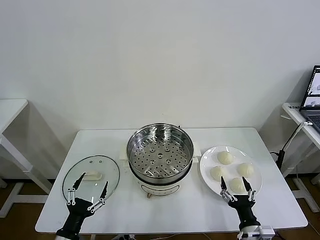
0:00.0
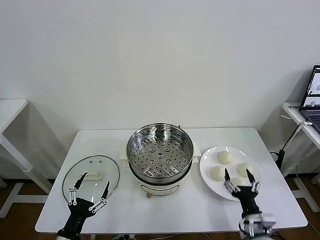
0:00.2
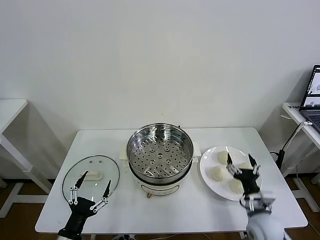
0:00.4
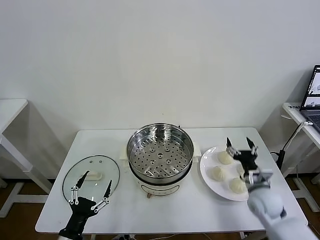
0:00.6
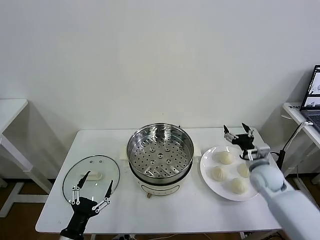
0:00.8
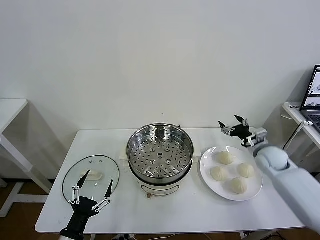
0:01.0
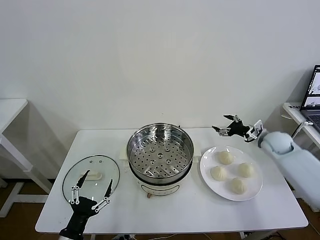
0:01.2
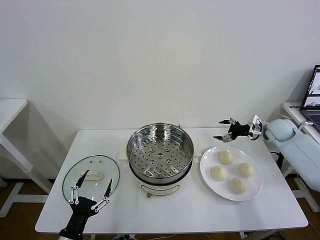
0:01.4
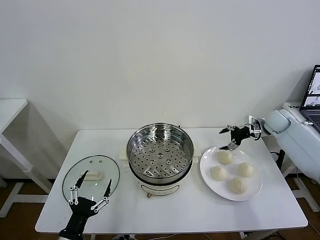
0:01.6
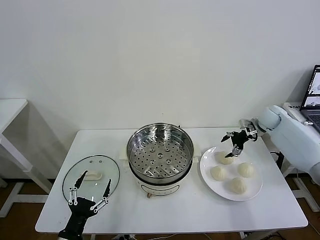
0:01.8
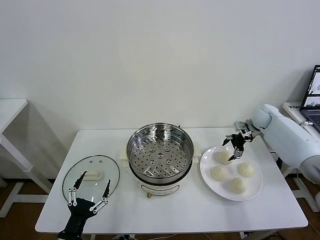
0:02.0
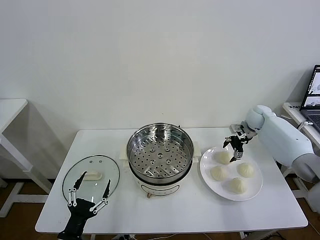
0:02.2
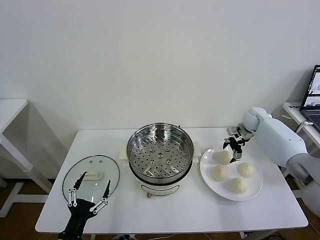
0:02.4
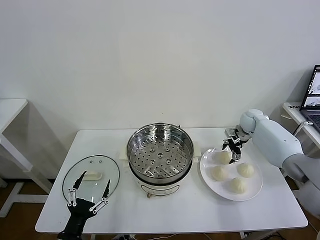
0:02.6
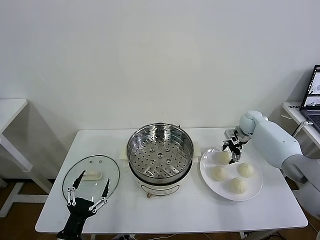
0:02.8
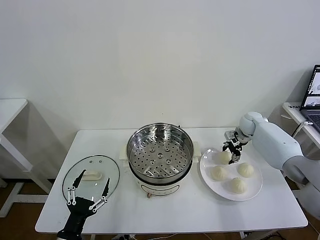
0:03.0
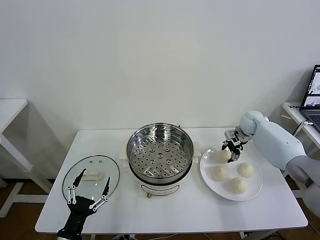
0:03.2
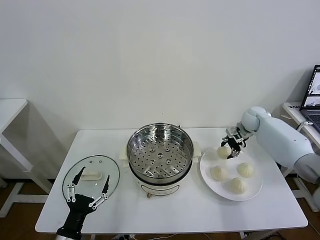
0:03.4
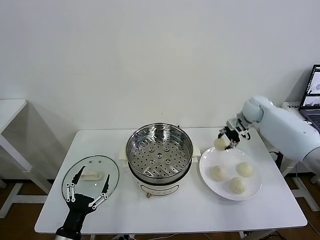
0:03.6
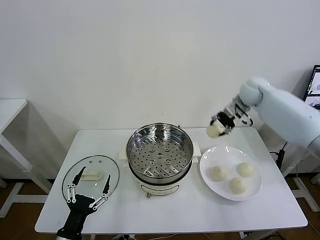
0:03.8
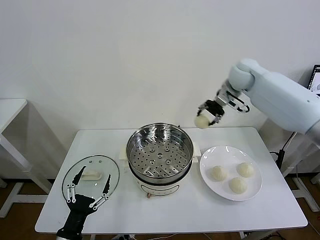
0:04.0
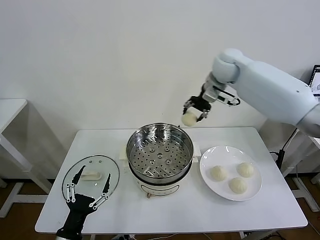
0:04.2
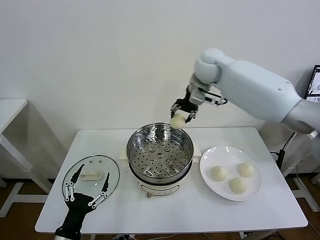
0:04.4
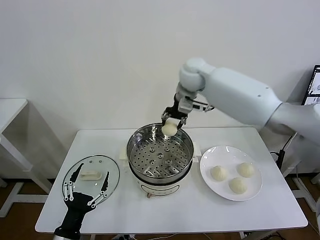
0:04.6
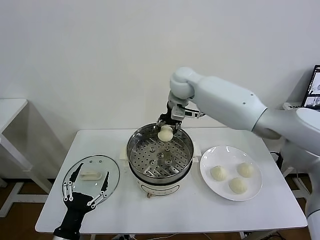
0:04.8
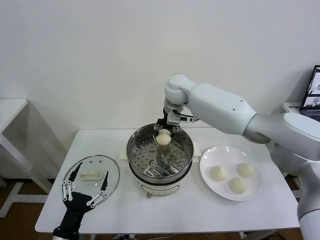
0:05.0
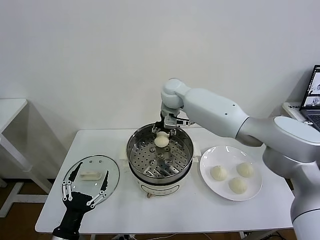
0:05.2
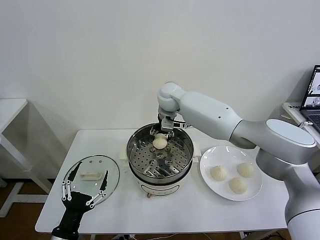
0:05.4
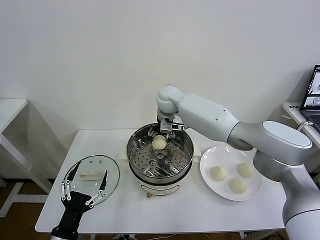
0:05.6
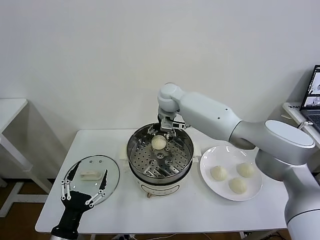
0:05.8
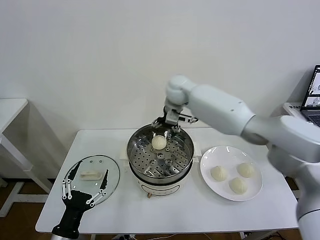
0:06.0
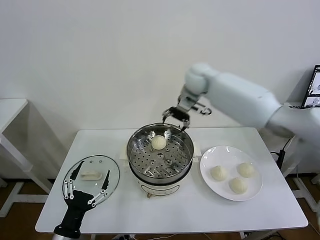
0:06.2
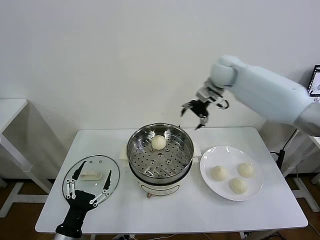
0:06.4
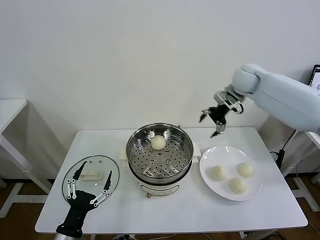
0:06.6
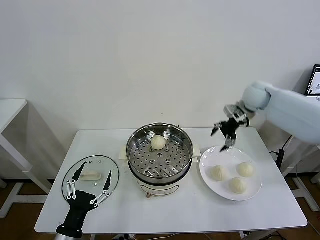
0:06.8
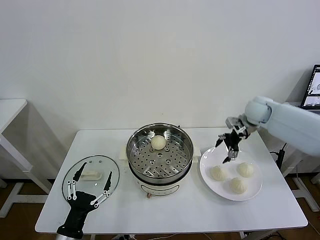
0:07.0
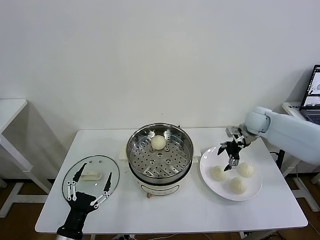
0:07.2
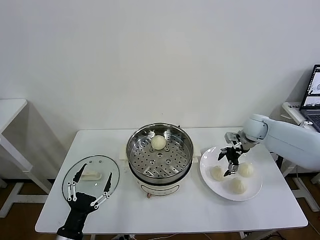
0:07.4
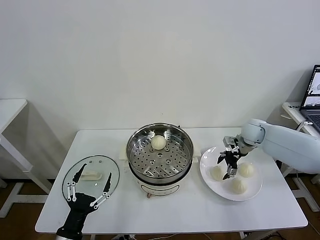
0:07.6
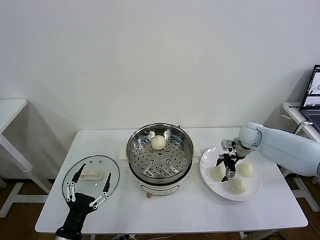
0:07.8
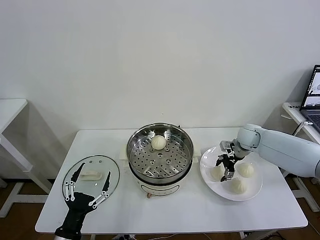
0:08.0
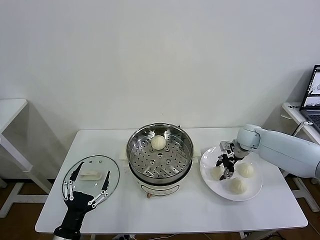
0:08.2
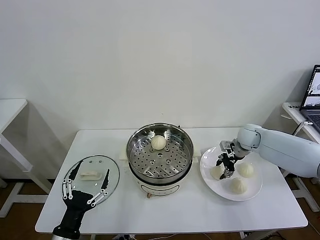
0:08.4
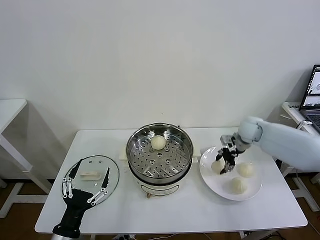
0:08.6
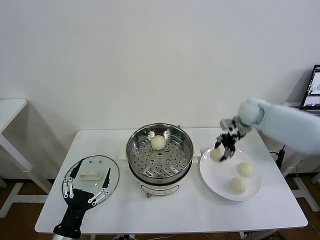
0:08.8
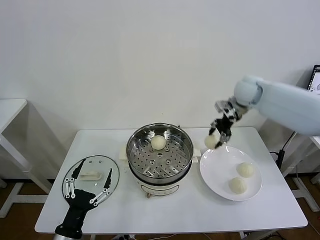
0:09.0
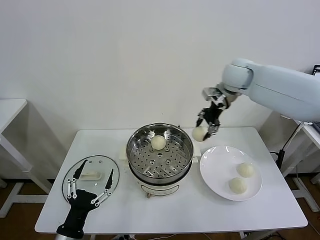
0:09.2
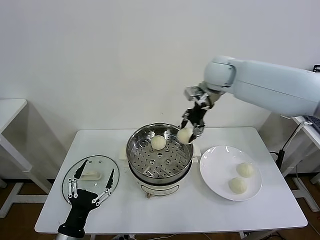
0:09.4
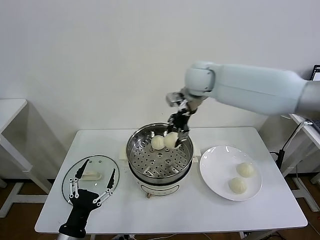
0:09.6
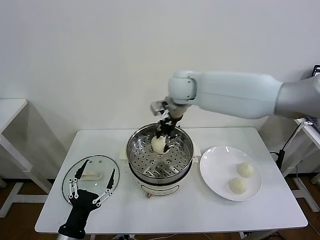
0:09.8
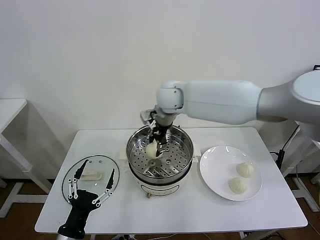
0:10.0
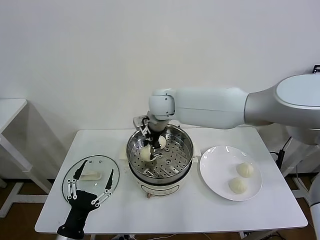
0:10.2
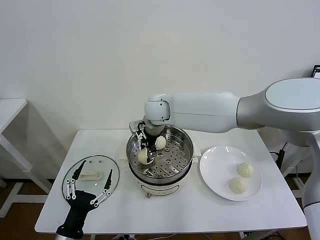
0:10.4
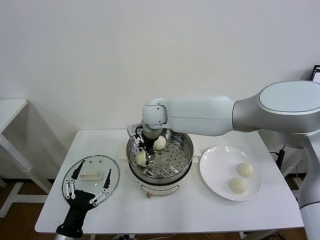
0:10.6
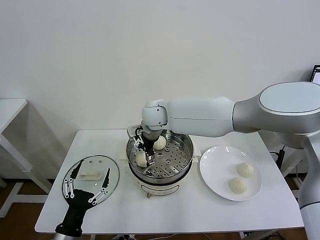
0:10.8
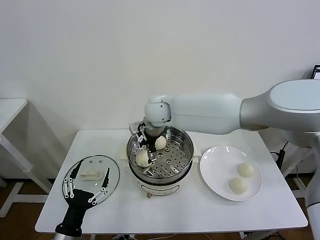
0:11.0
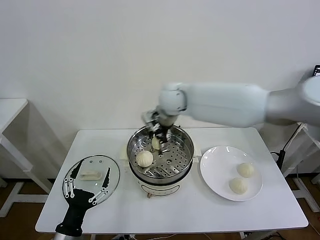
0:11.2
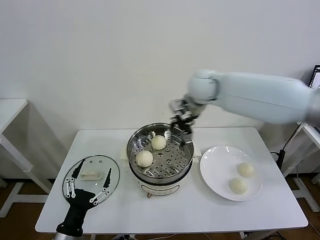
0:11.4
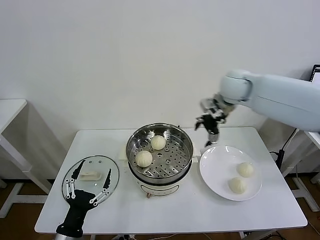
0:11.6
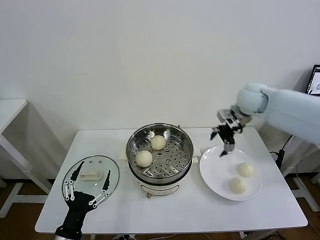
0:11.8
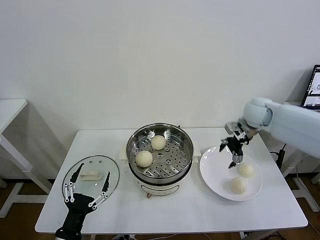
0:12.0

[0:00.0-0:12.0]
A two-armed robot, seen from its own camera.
Task of the whole recording: take steamed baozi put them in steamer then cover it.
Step, 0:00.0 to 0:03.0: Grasp the baozi in the plate with right gripper.
Step, 0:03.2 to 0:05.6: Place the baozi on the steamer with right gripper.
Step, 0:05.8 to 0:08.2: Grasp the baozi in the plate with right gripper.
Step, 0:08.4 to 0:10.8: Place the baozi on the steamer with right gripper.
0:01.6 to 0:03.0: The right gripper is displaced to the left and downward by about 10 cm, and closes up.
0:03.0 to 0:04.4: The right gripper travels to the left and upward by about 35 cm, and closes its fingers.
0:04.4 to 0:06.0: The right gripper travels downward by some 5 cm, and opens its fingers.
0:06.0 to 0:07.6: The right gripper goes some 30 cm to the right and downward.
0:07.6 to 0:09.0: The right gripper travels upward and to the left by approximately 20 cm, and closes its fingers.
0:09.0 to 0:10.4: The right gripper moves to the left, about 30 cm.
0:10.4 to 0:12.0: The right gripper is displaced to the right by about 35 cm, and opens its fingers.

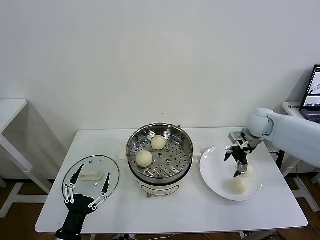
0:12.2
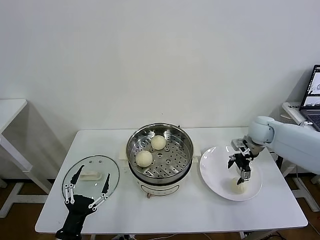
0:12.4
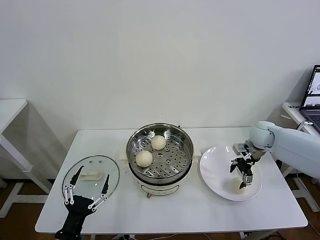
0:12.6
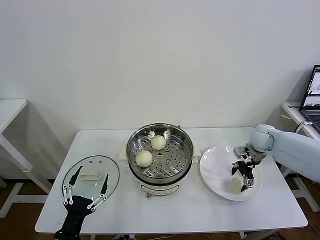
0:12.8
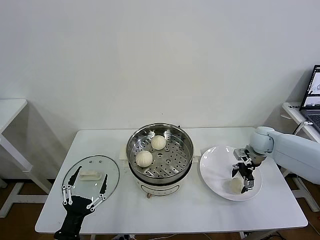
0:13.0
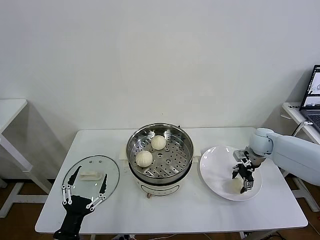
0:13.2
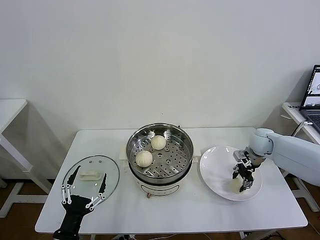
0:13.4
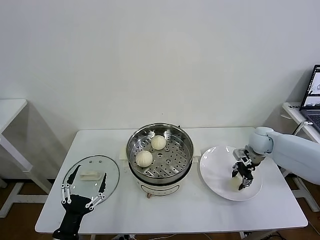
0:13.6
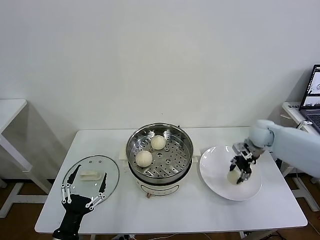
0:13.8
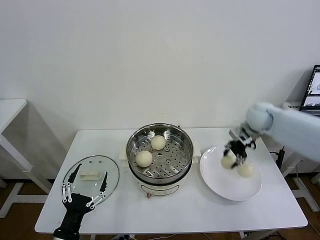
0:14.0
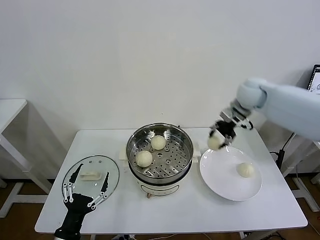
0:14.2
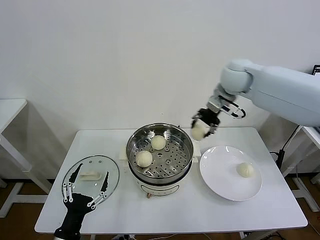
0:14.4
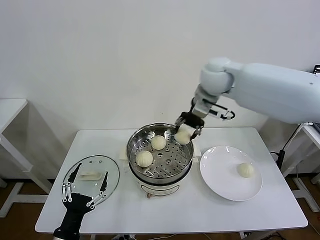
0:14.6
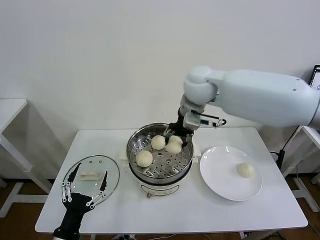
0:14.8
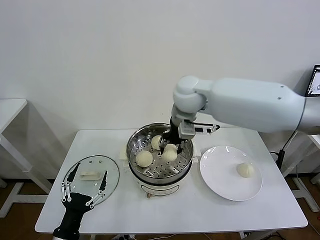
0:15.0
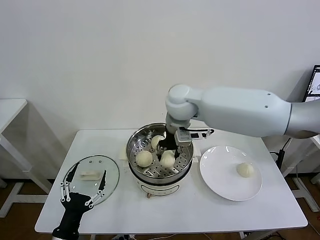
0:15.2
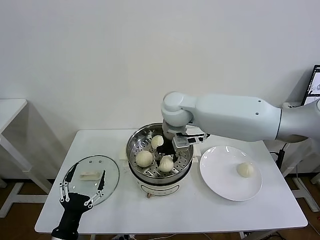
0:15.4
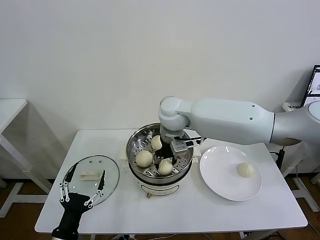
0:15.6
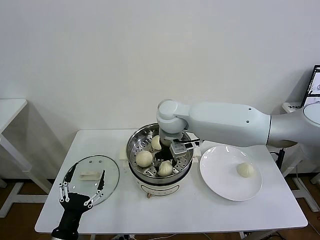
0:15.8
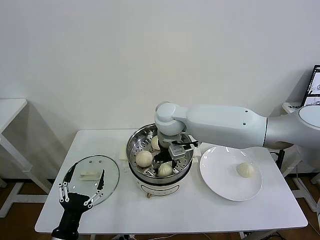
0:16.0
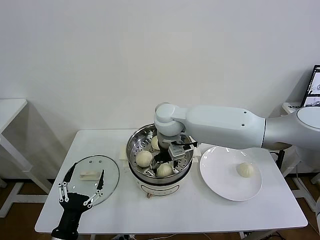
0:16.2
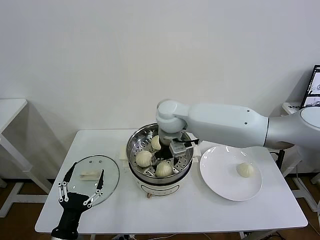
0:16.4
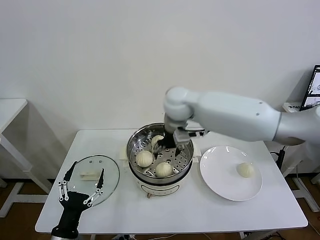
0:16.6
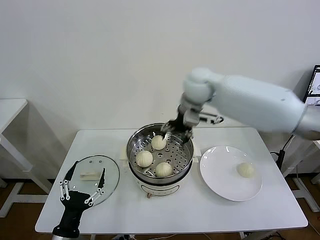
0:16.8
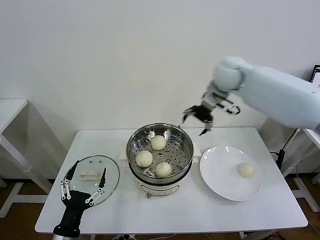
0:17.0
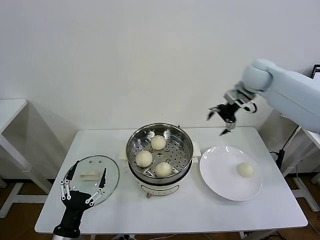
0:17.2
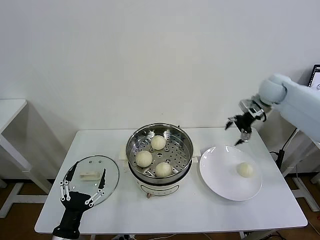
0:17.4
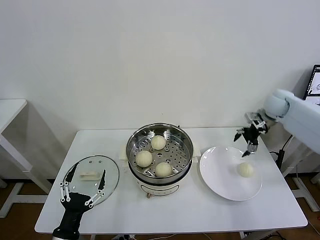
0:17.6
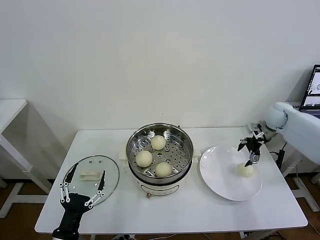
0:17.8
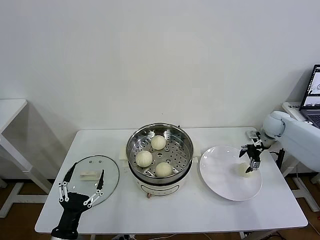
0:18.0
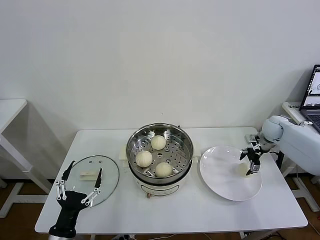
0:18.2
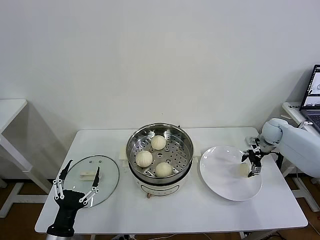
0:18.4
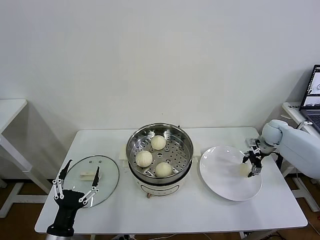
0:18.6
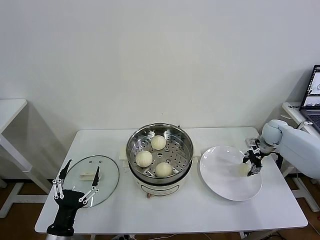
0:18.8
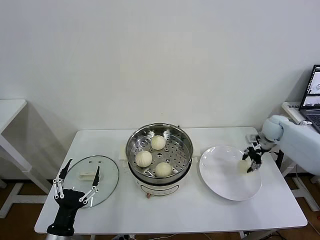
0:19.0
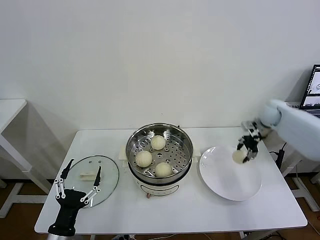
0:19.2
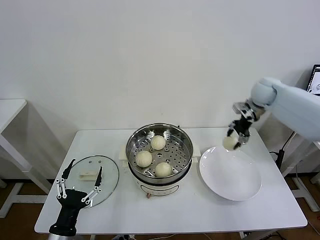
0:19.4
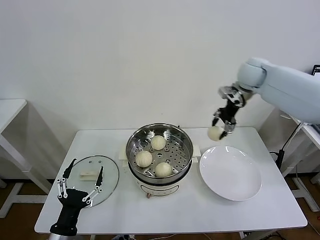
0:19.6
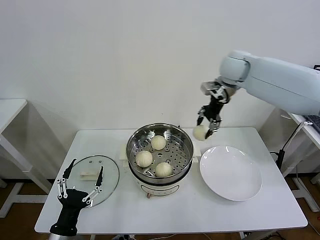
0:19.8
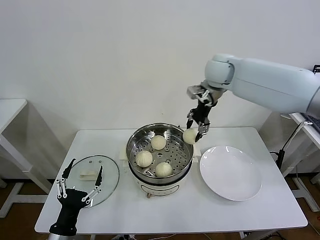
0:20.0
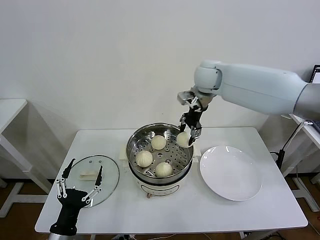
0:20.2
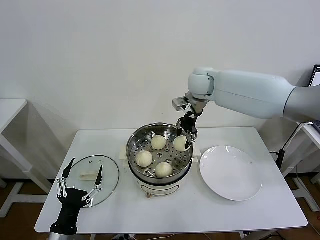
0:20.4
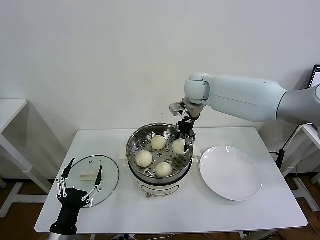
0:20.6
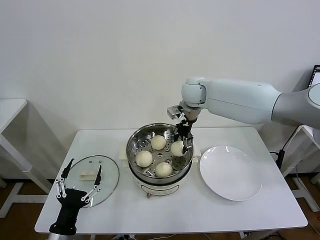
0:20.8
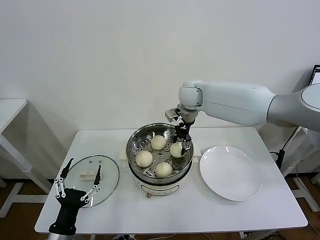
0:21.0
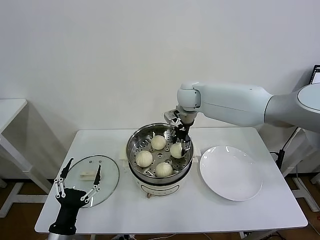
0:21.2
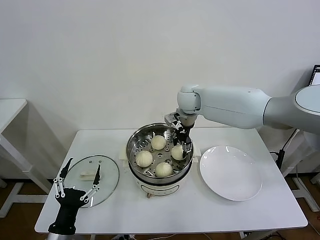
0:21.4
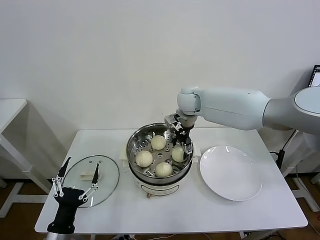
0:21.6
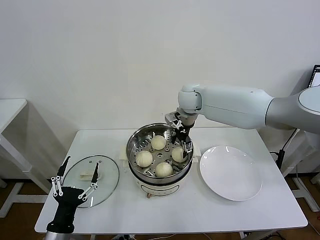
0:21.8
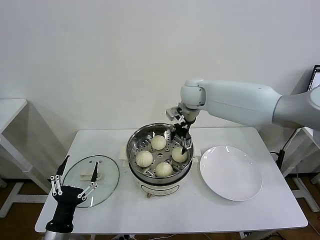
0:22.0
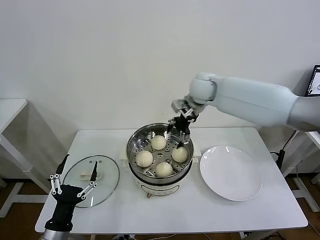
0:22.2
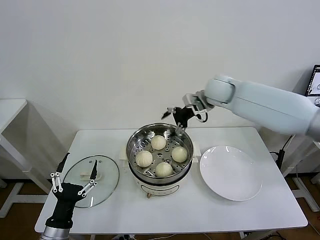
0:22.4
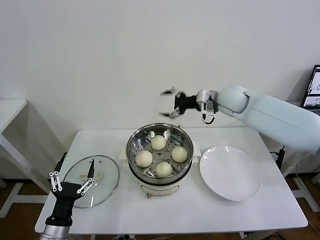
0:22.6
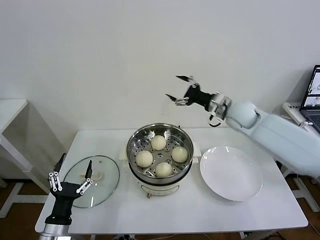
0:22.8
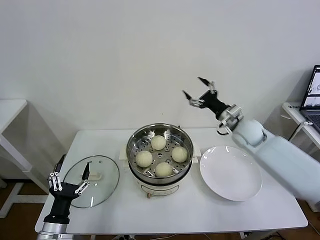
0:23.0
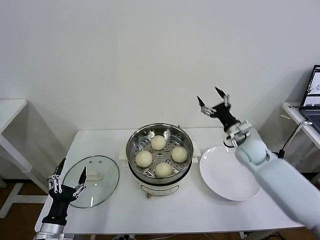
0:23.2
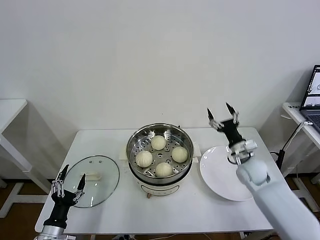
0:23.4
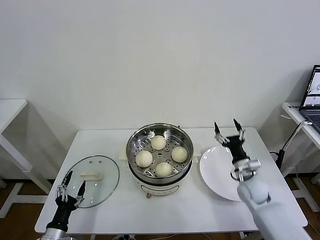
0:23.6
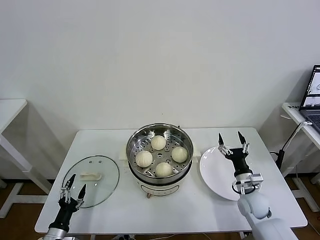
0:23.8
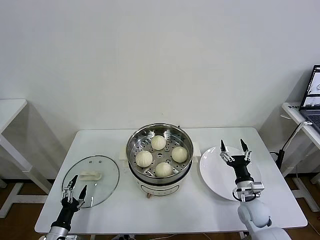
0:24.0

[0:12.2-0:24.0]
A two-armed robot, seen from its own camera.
Task of the whole recording: take steamed baozi put them in steamer then cover it.
Step, 0:13.4 to 0:16.2: Place the baozi on the steamer with right gripper.
Step, 0:16.4 to 0:18.6: Grasp the baozi in the plate with right gripper.
Step, 0:18.8 to 0:21.6: Place the baozi on the steamer with right gripper.
0:12.2 to 0:13.6: The right gripper is displaced downward by about 5 cm, and closes.
0:13.6 to 0:15.2: The right gripper goes roughly 35 cm to the left and upward.
0:15.2 to 0:16.6: The right gripper opens.
0:16.6 to 0:18.2: The right gripper heads to the right and downward, covering roughly 40 cm.
0:18.2 to 0:19.6: The right gripper shifts approximately 25 cm upward and to the left, and closes.
0:19.6 to 0:21.0: The right gripper travels to the left and downward by roughly 20 cm.
0:21.0 to 0:22.6: The right gripper heads to the right, covering some 15 cm, and opens its fingers.
0:22.6 to 0:24.0: The left gripper goes approximately 15 cm downward and to the left. The right gripper goes roughly 40 cm downward and backward.
